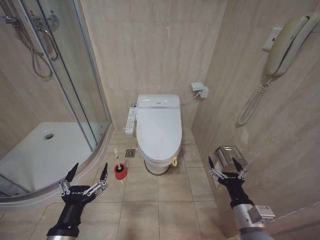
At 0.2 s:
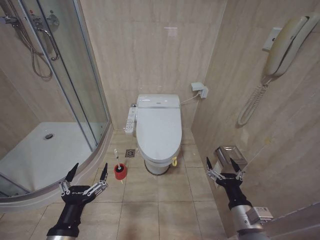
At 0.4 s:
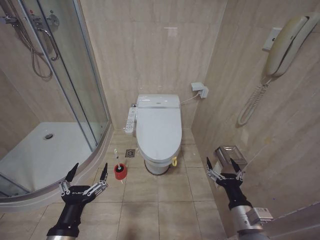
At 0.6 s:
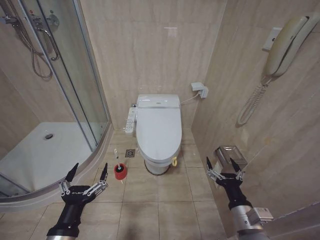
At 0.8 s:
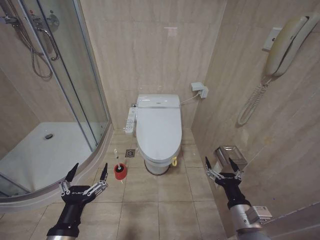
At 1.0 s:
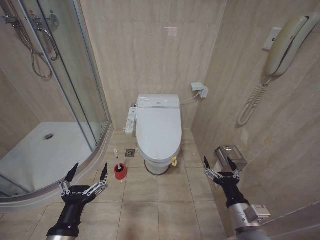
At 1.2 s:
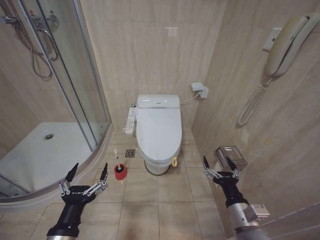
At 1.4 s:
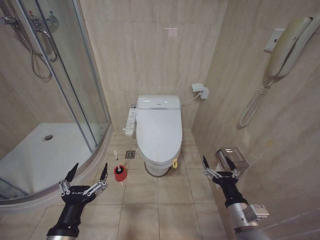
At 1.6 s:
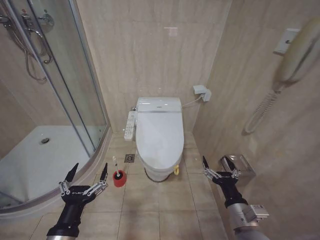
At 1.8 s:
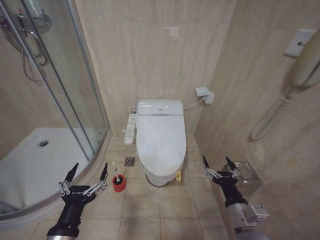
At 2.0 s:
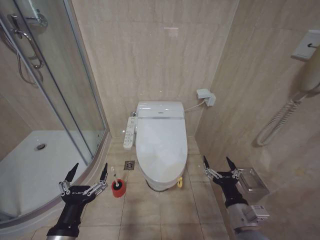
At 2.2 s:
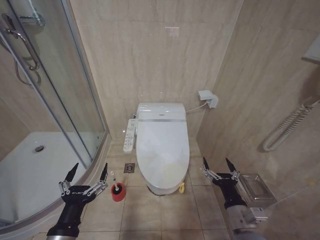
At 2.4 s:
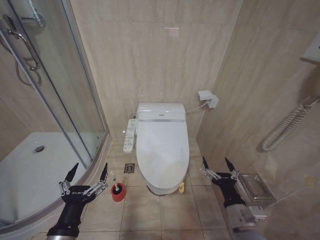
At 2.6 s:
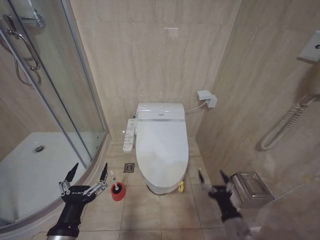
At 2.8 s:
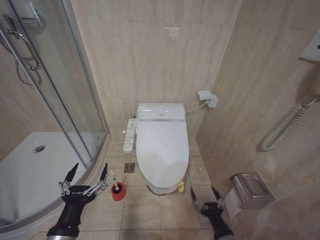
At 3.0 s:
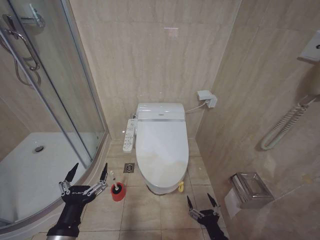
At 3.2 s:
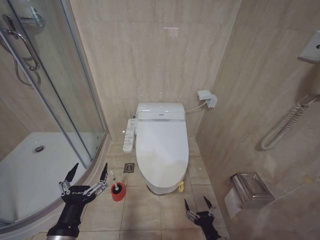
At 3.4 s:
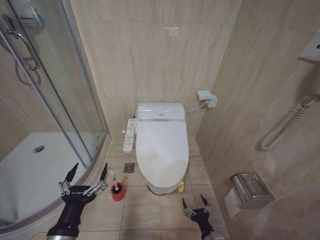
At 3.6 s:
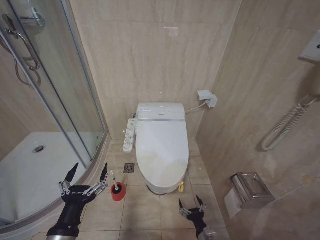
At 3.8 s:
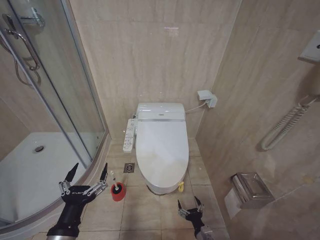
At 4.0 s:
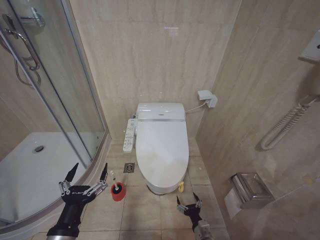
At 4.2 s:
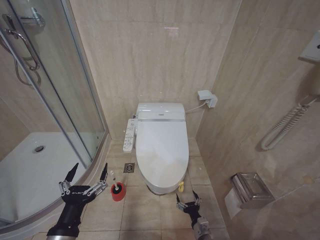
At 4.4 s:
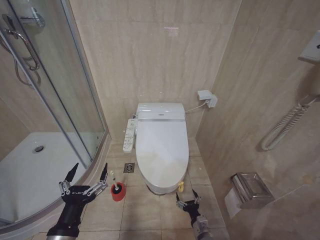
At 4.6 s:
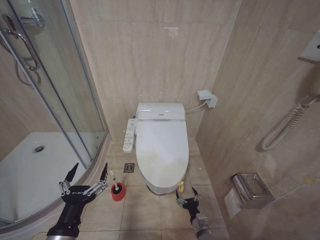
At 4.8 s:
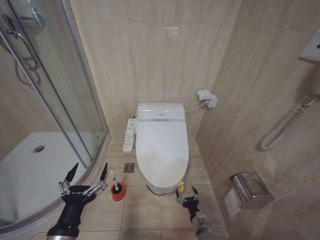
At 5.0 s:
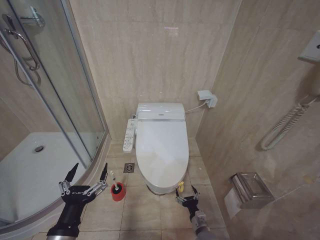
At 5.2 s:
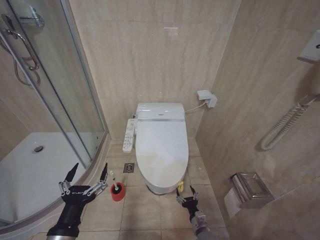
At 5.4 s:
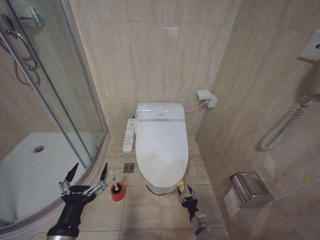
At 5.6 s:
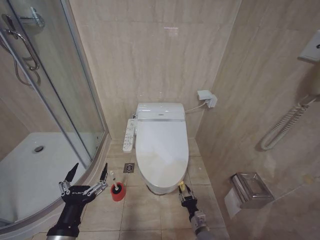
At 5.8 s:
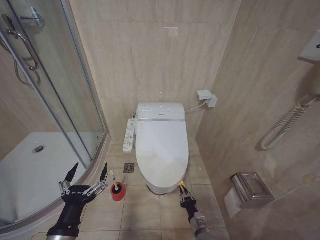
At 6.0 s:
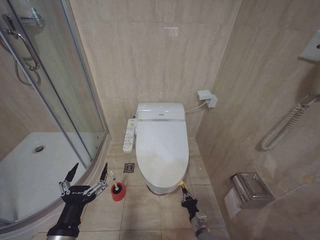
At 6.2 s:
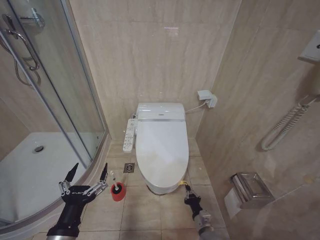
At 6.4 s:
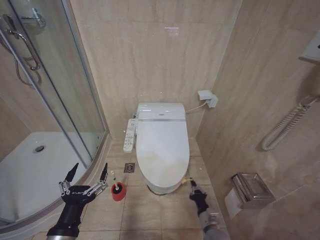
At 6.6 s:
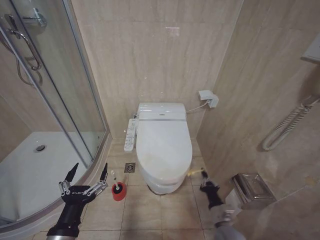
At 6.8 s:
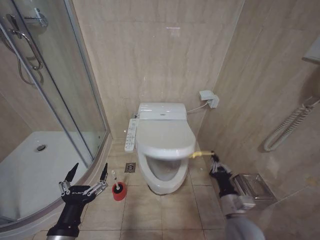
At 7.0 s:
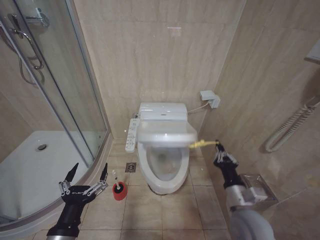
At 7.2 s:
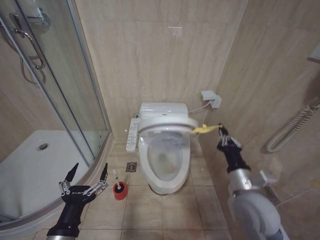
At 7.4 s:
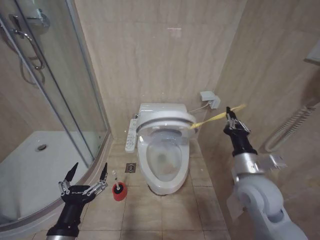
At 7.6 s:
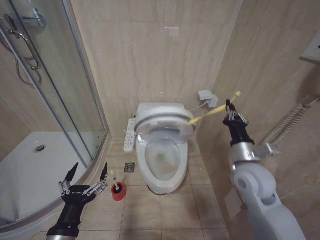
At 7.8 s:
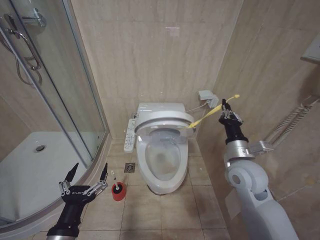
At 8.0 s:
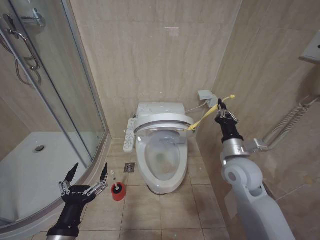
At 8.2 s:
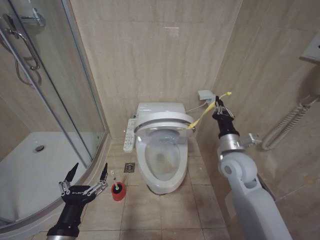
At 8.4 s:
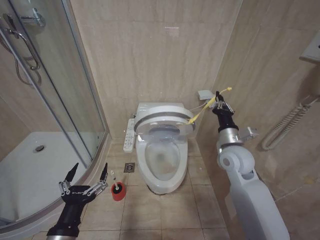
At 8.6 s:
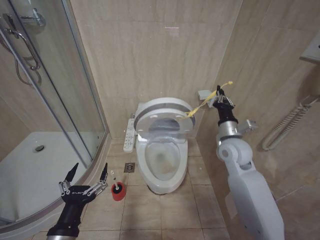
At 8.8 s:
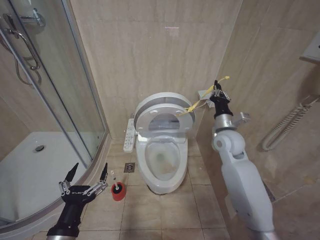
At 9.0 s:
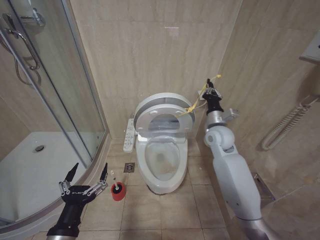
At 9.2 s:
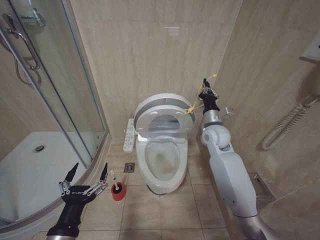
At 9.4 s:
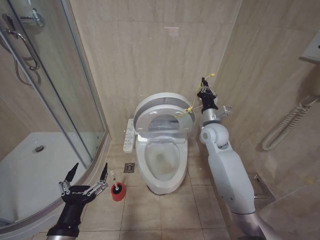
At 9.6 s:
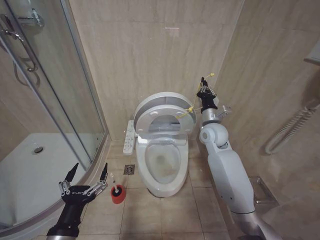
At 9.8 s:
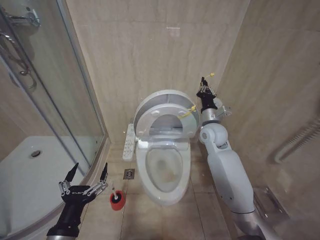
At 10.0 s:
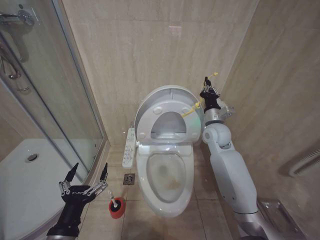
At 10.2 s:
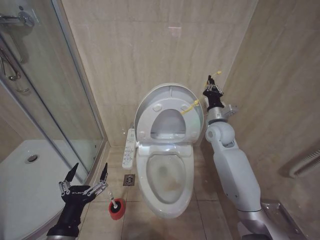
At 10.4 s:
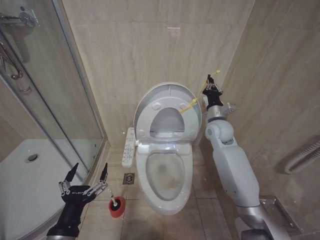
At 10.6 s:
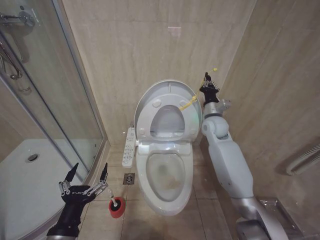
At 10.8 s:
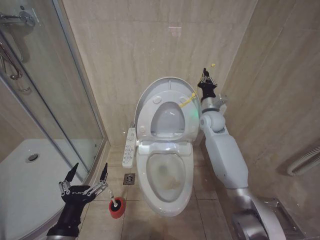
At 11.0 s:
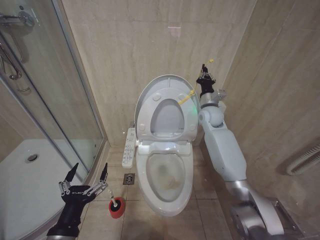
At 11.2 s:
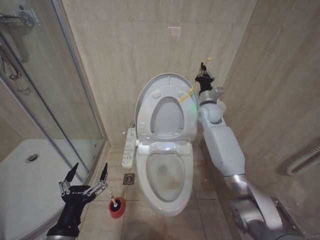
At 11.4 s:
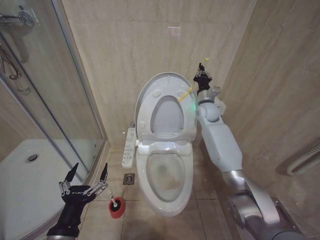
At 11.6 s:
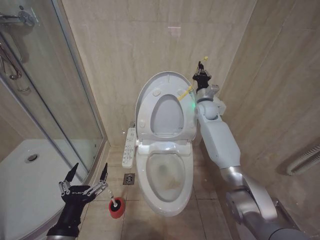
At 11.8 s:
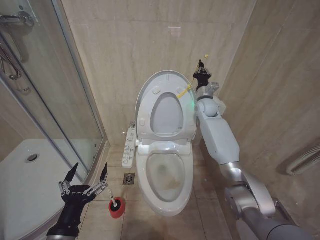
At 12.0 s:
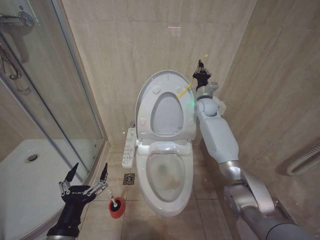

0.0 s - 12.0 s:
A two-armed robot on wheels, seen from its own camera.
Task of the whole recording: Open the toilet lid, clean the toilet bowl with a toilet brush, close the toilet lid, and flush.
1.6 s - 3.0 s: The right gripper travels downward and backward by roughly 15 cm.
3.0 s - 4.4 s: The right gripper moves downward and forward, roughly 20 cm.
6.0 s - 7.6 s: The right gripper is displaced upward by approximately 40 cm.
7.6 s - 9.0 s: The right gripper heads forward, covering some 15 cm.
9.0 s - 10.4 s: The grippers stay close to where they were, moving slightly.
10.4 s - 12.0 s: The right gripper is displaced forward by some 10 cm.

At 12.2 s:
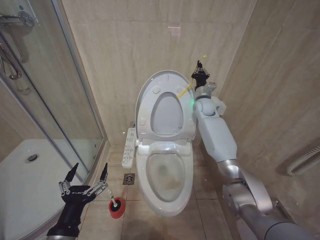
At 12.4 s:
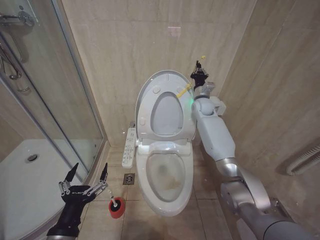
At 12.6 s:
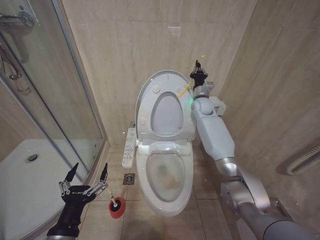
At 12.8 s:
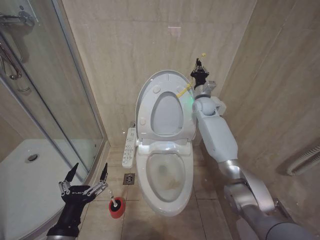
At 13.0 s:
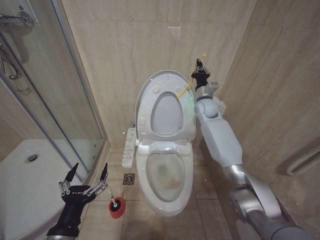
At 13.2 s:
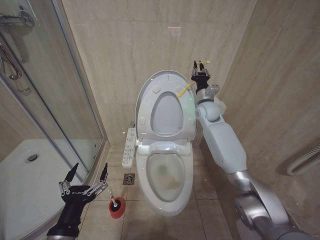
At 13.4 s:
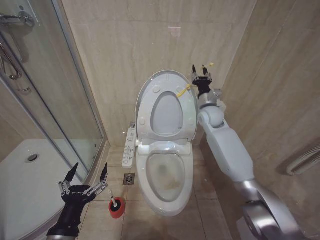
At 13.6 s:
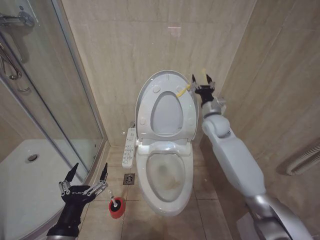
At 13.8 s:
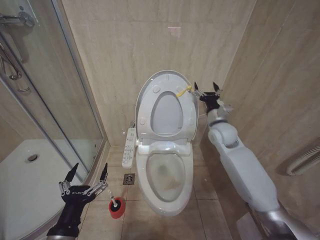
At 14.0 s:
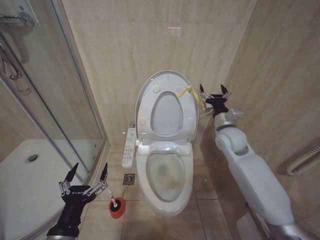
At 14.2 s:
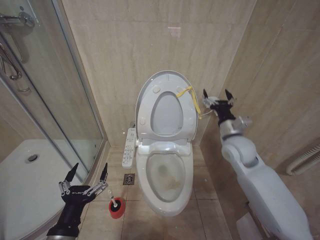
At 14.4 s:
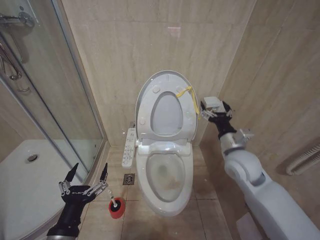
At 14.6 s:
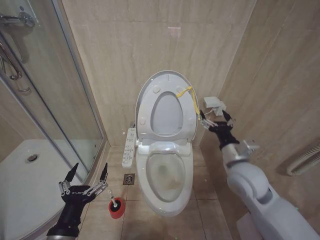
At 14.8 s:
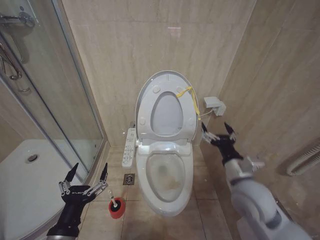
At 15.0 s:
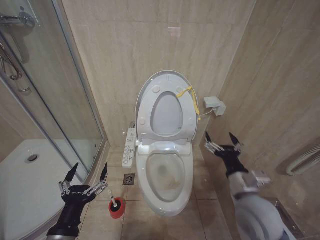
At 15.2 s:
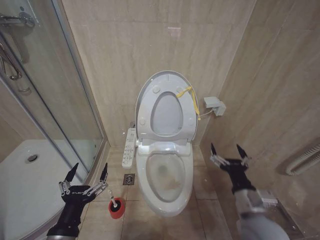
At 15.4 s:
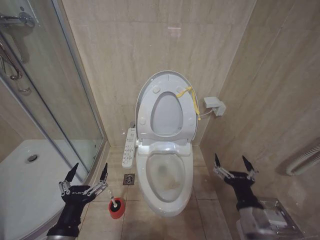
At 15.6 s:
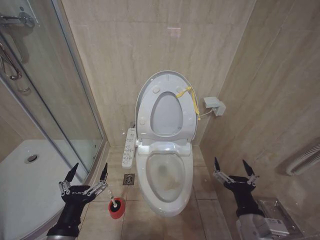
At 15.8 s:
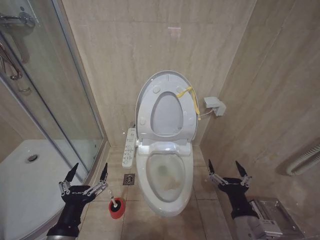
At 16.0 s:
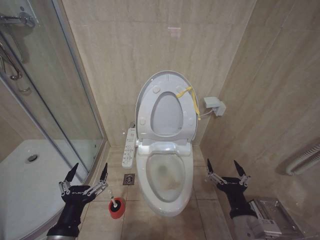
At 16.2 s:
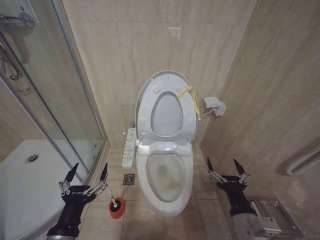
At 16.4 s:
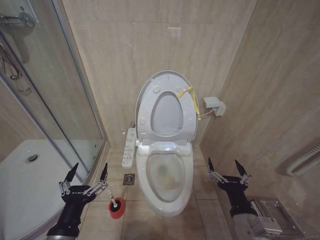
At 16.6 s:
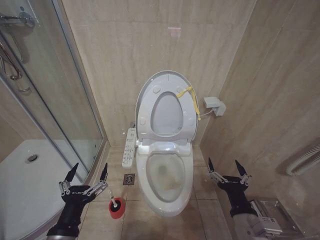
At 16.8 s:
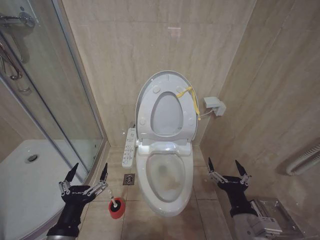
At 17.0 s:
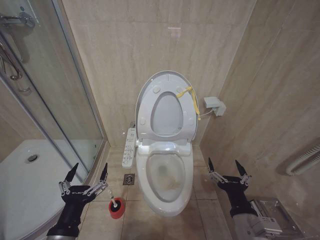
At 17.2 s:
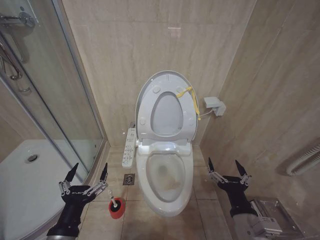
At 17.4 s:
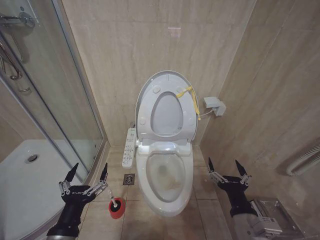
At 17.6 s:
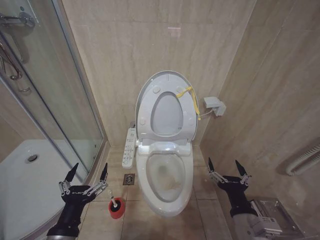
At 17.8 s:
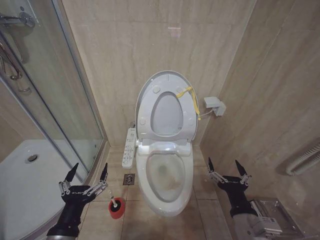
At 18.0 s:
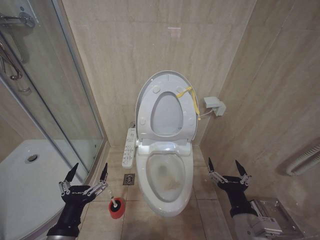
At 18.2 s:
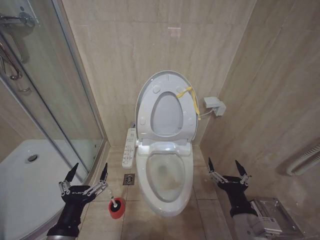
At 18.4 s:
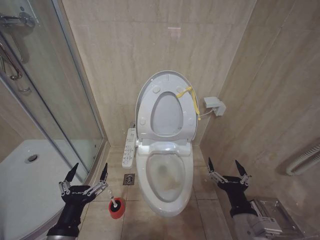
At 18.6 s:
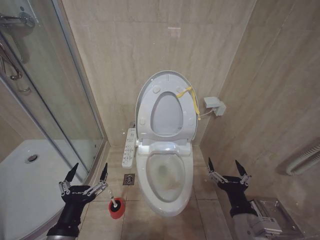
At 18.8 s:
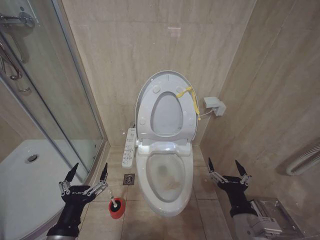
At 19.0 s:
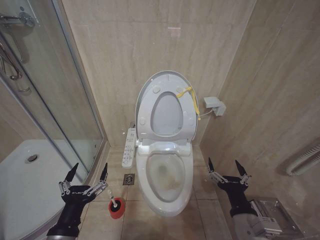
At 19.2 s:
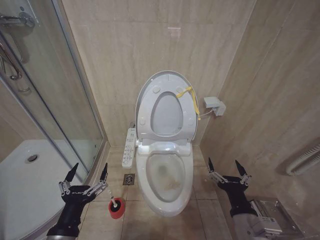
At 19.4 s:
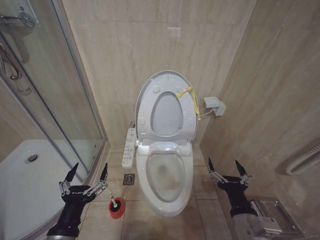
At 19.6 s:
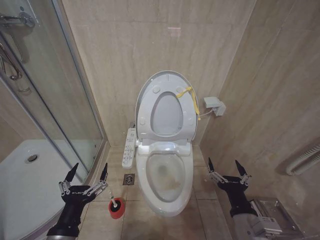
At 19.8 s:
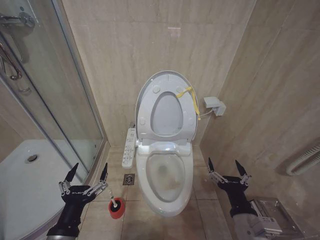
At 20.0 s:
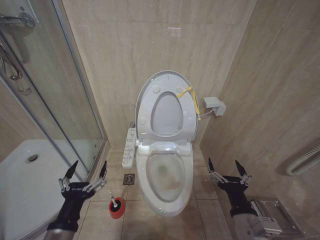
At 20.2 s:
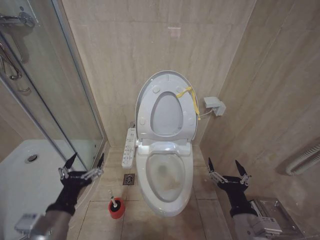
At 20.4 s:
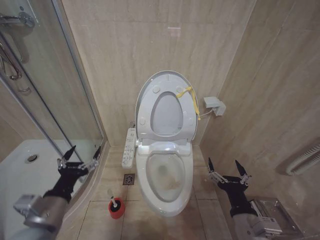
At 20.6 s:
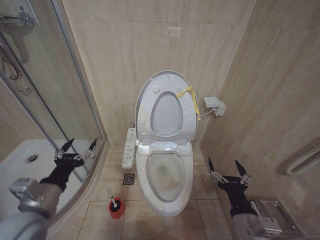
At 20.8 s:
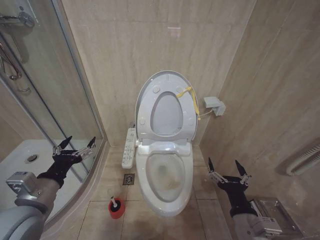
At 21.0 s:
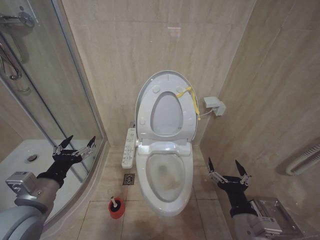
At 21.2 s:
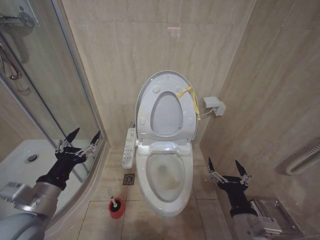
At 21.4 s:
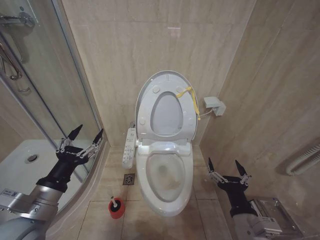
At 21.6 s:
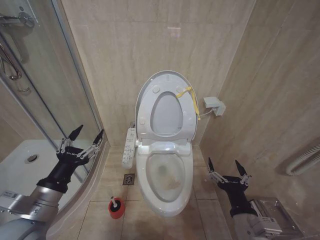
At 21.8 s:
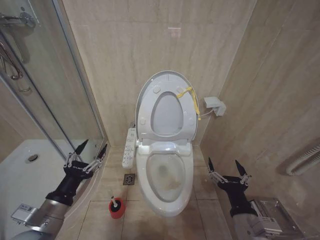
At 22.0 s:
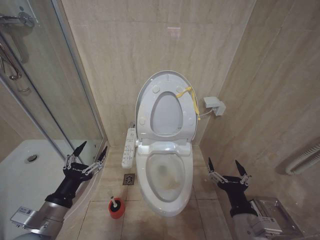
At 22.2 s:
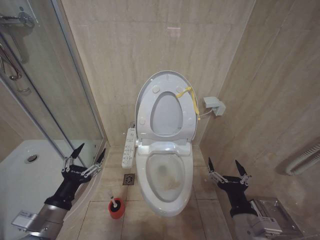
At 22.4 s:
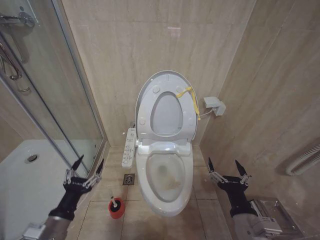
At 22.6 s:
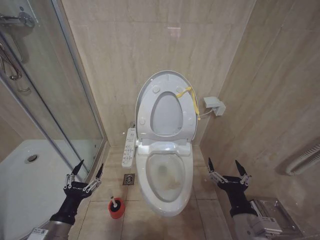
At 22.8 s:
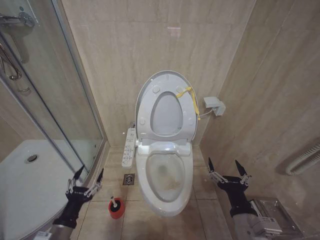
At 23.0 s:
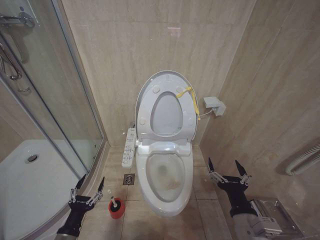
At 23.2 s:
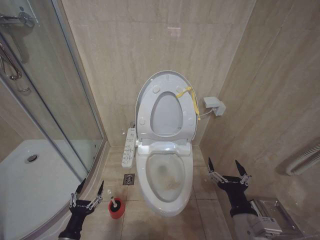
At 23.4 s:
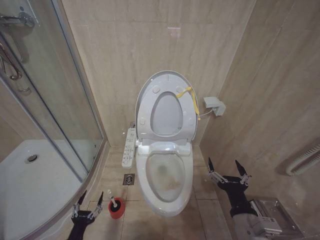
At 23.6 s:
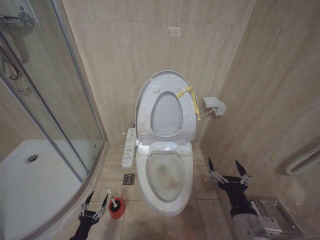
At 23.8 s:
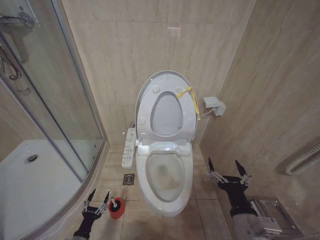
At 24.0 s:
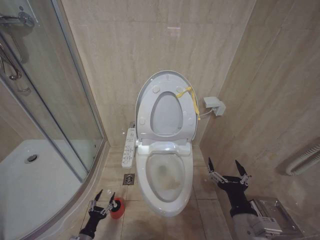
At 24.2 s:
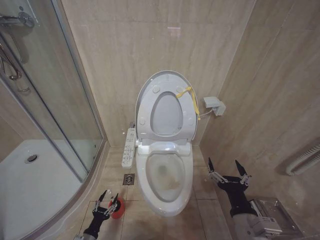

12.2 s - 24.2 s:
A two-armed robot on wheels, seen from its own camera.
Task of the whole recording: Open the toilet lid, clean the toilet bowl with a toilet brush, close the toilet lid, and flush.
12.2 s - 13.8 s: The right gripper travels backward by about 15 cm, and opens its fingers.
13.8 s - 15.2 s: The right gripper is displaced backward by roughly 30 cm.
15.2 s - 16.6 s: The right gripper travels backward by roughly 5 cm.
16.6 s - 19.8 s: Both grippers stay put.
19.8 s - 21.2 s: The left gripper shifts some 15 cm forward, upward and to the left.
21.2 s - 22.6 s: The left gripper goes about 15 cm downward.
22.6 s - 24.2 s: The left gripper moves downward, some 30 cm.
